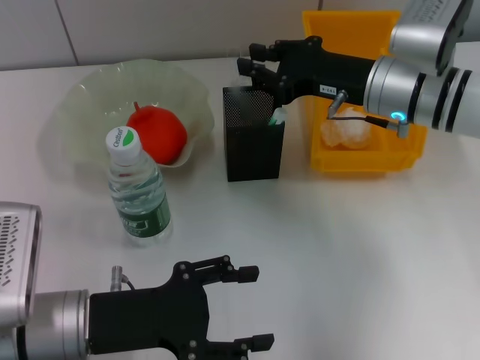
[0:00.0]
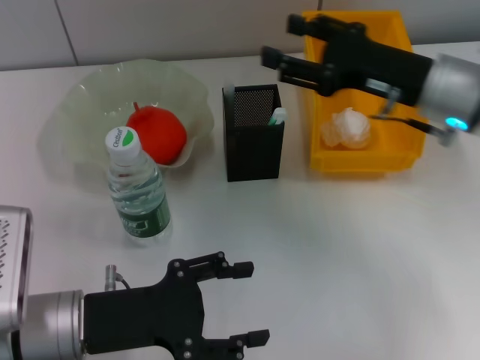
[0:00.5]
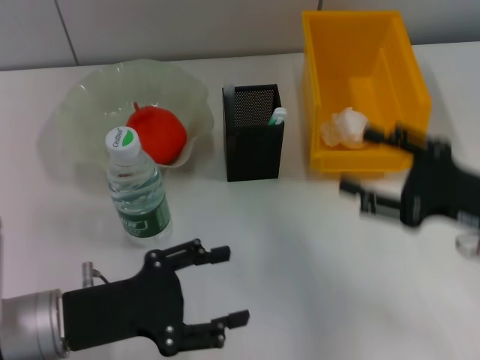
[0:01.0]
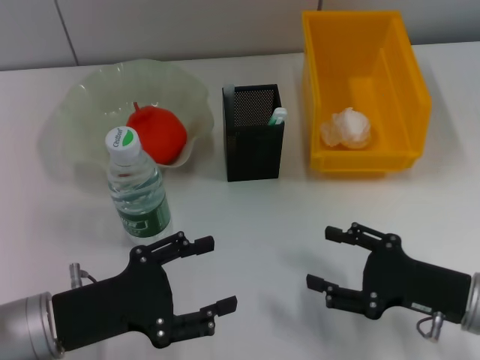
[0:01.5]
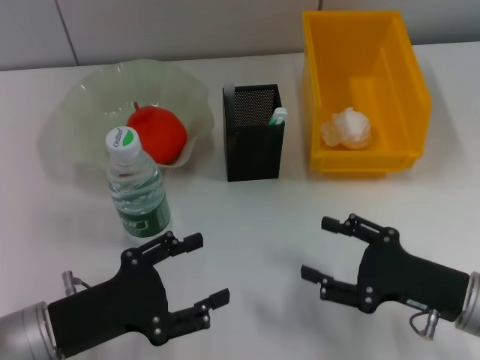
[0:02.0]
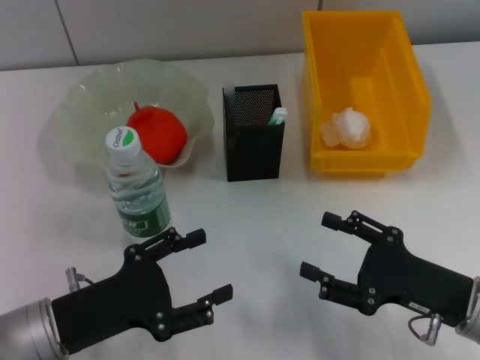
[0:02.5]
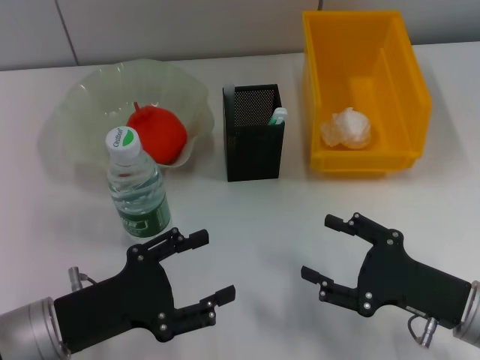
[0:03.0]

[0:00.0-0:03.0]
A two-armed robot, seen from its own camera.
0:00.0 to 0:01.5: The right gripper shifts approximately 20 cm backward and downward, and opens.
0:01.5 to 0:03.0: There are only small adjustments of the grippers.

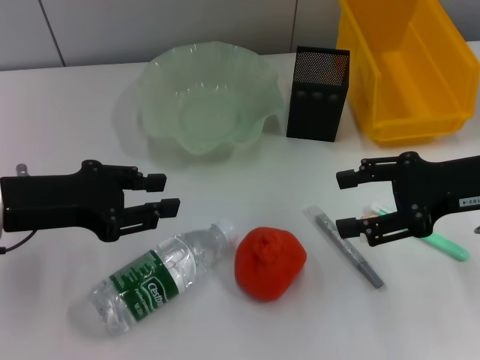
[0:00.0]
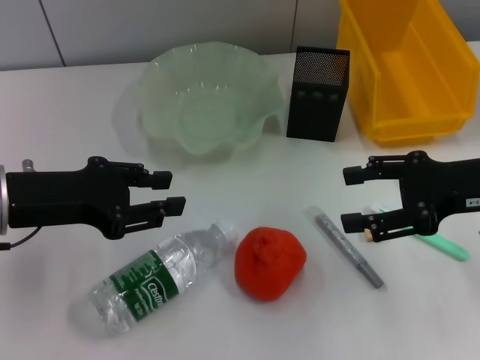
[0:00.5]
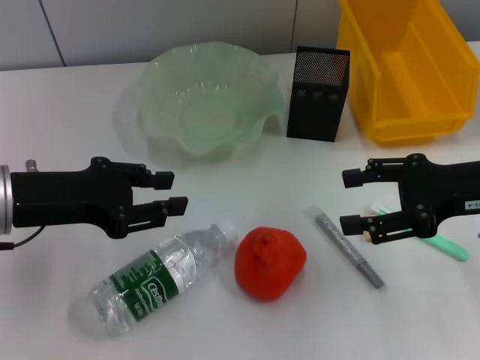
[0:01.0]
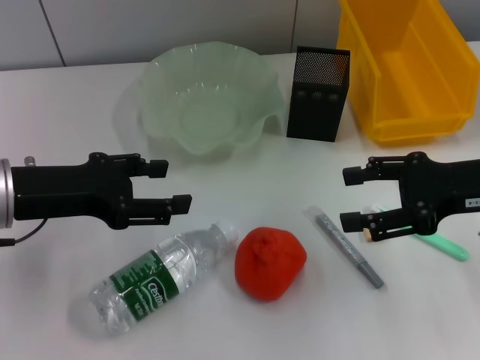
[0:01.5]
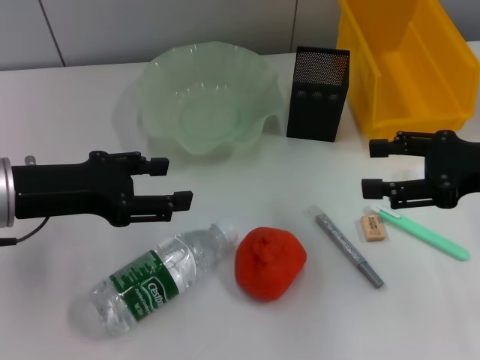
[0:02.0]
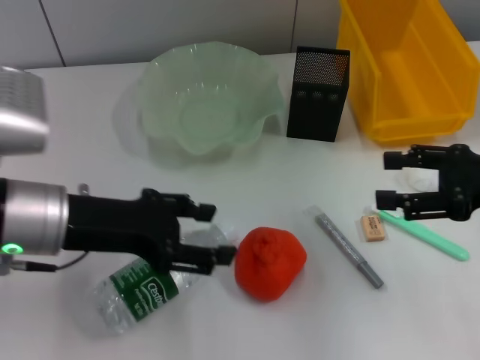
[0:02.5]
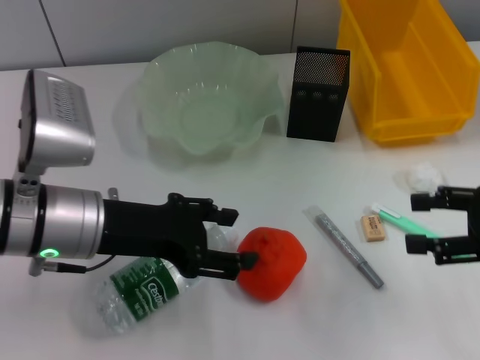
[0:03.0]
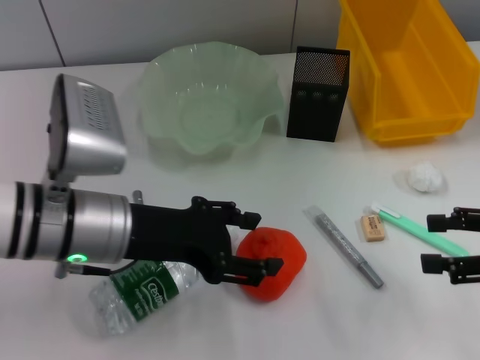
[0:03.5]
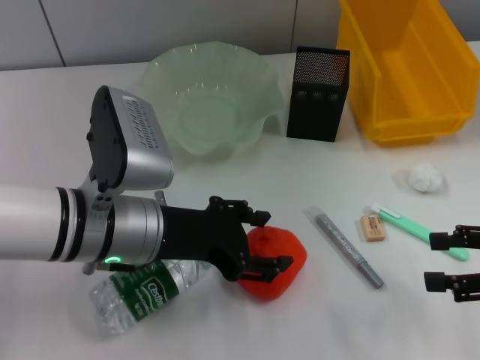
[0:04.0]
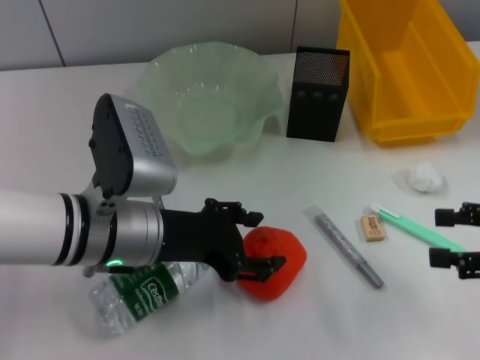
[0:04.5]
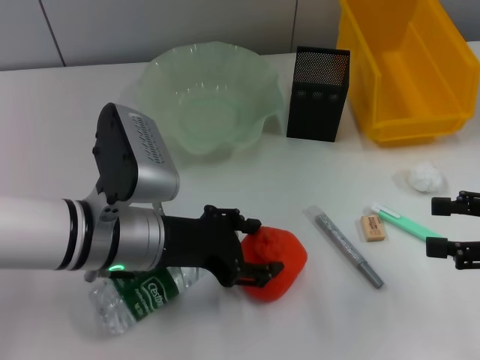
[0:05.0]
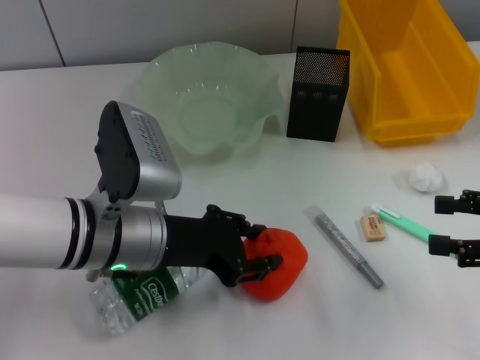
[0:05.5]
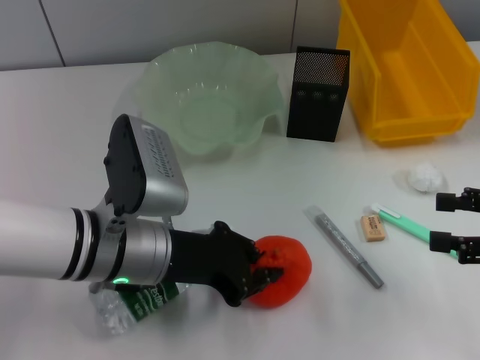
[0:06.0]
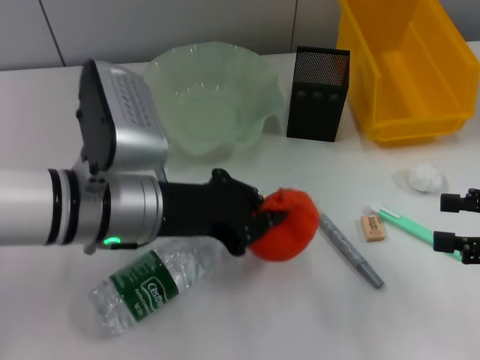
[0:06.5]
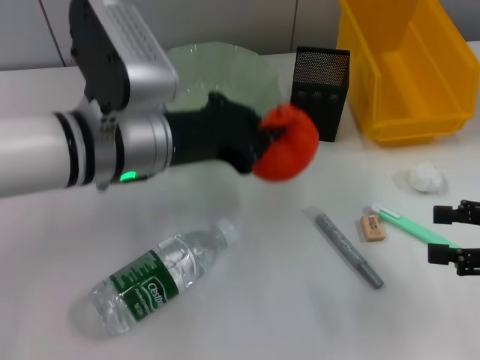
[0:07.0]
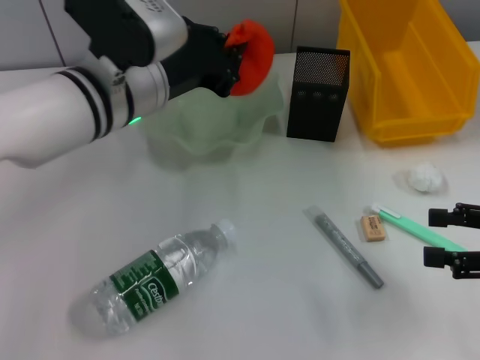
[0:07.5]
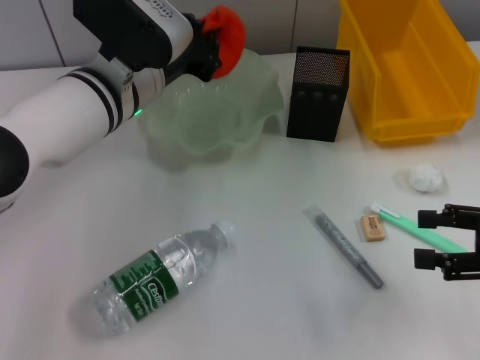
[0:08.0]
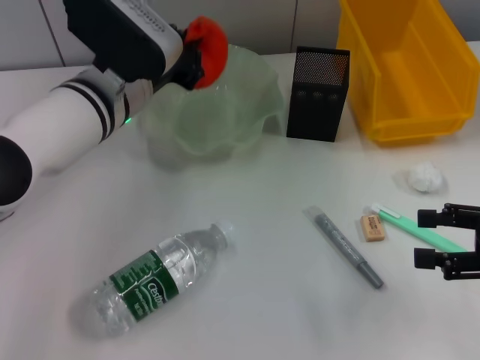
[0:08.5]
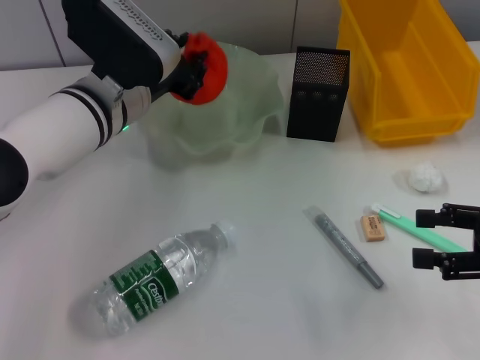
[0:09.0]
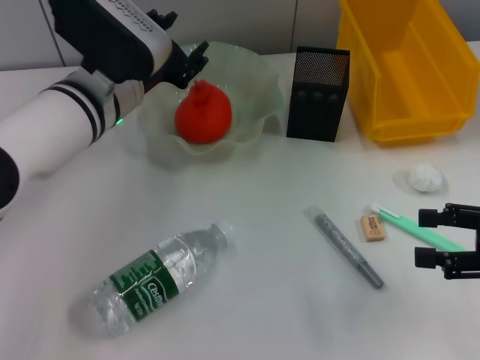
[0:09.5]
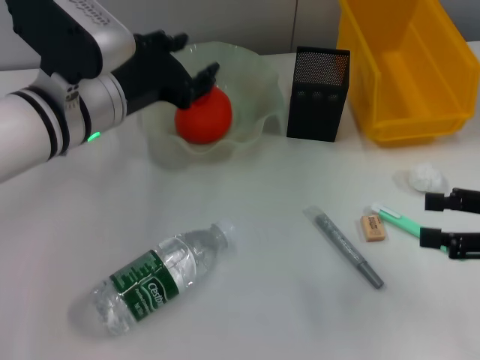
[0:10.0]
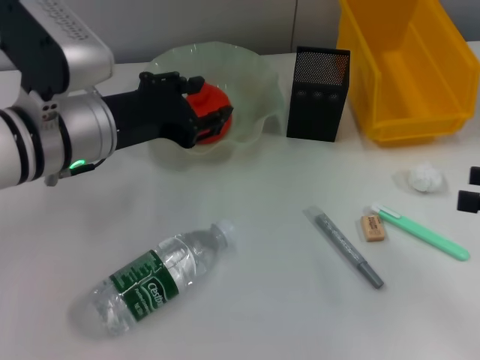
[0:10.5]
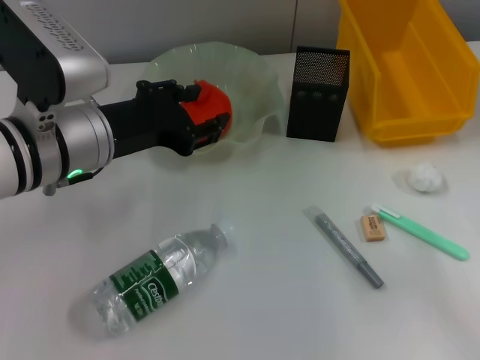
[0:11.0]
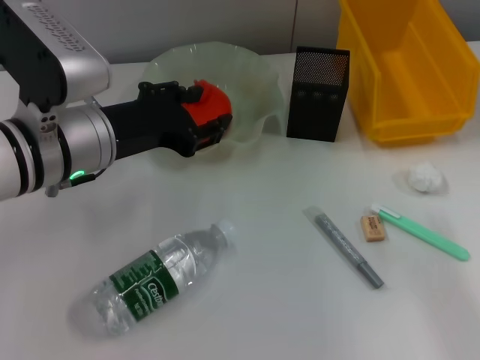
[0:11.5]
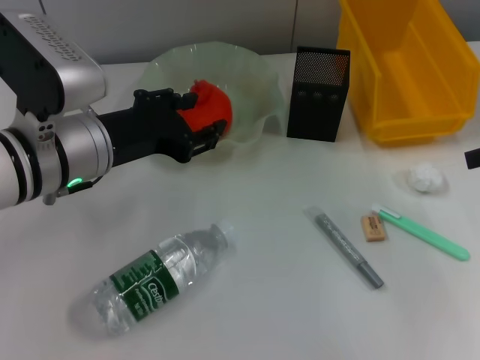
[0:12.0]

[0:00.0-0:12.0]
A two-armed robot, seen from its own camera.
Step, 0:00.0 to 0:05.5: Grab the orange with the left hand.
Step, 0:06.0 to 0:09.5: Place the orange into the fruit bowl with the left hand.
0:00.0 to 0:02.0: The left gripper opens up.
0:02.0 to 0:04.0: The left gripper goes roughly 10 cm to the right. Meanwhile the right gripper goes approximately 5 cm backward.
0:04.0 to 0:06.0: The left gripper closes.
0:06.0 to 0:08.0: The left gripper shifts approximately 10 cm forward and upward.
0:08.0 to 0:10.0: The left gripper opens up.
0:10.0 to 0:12.0: The right gripper heads upward and forward, covering about 10 cm.

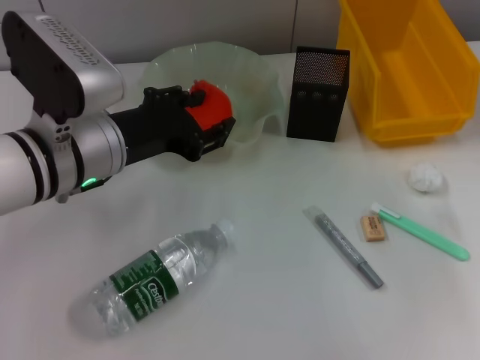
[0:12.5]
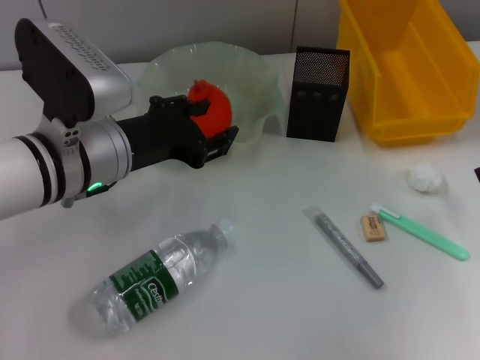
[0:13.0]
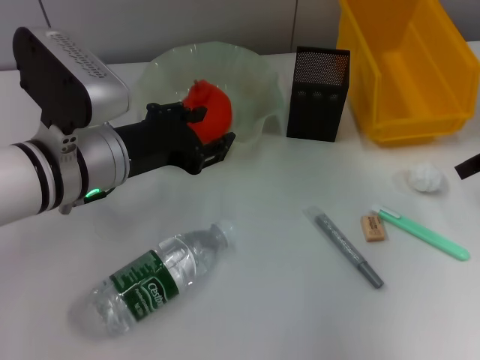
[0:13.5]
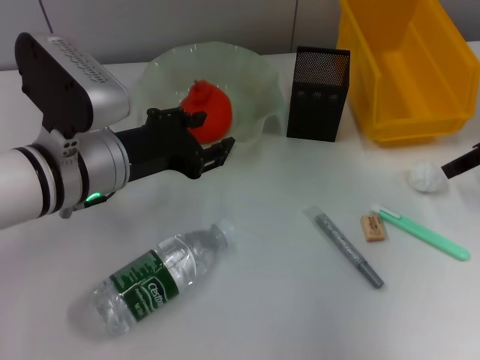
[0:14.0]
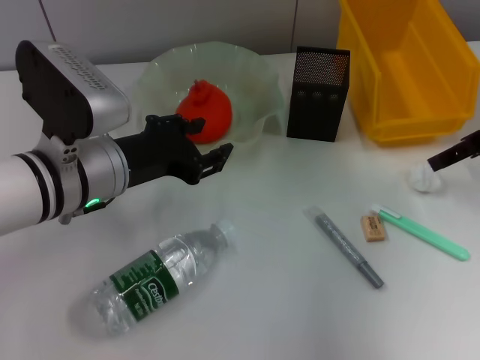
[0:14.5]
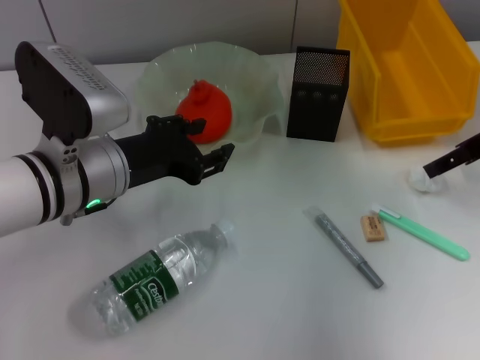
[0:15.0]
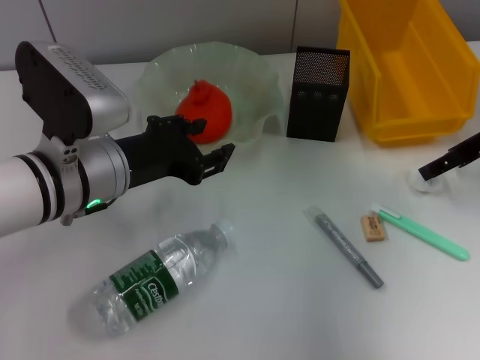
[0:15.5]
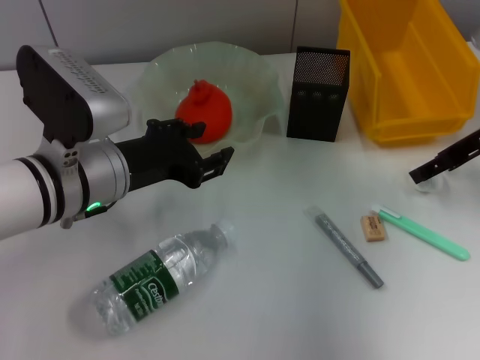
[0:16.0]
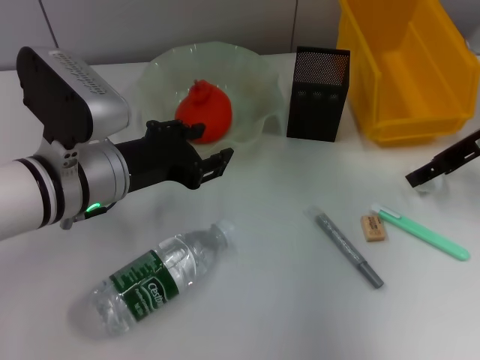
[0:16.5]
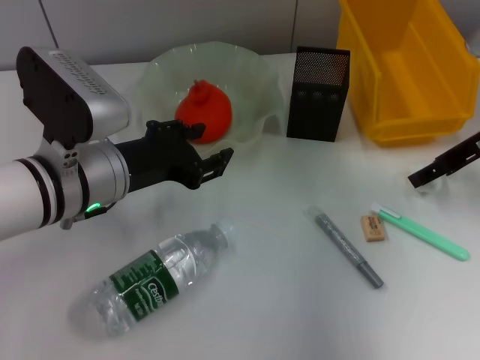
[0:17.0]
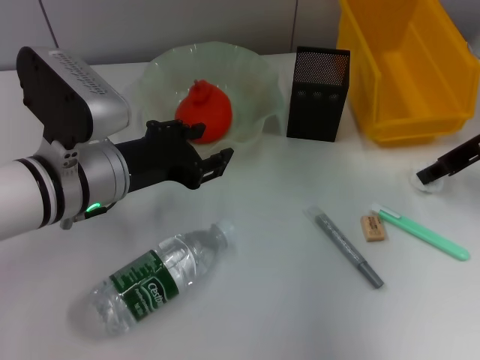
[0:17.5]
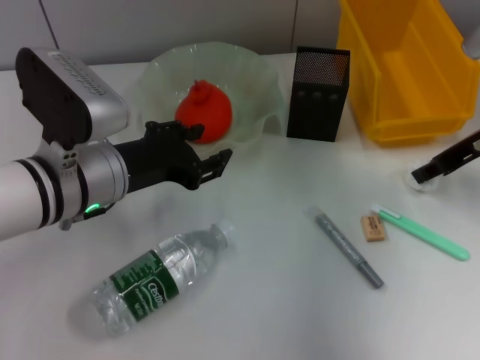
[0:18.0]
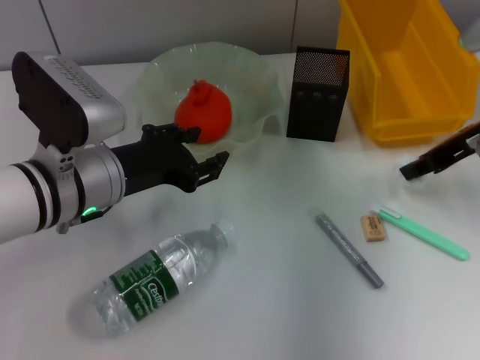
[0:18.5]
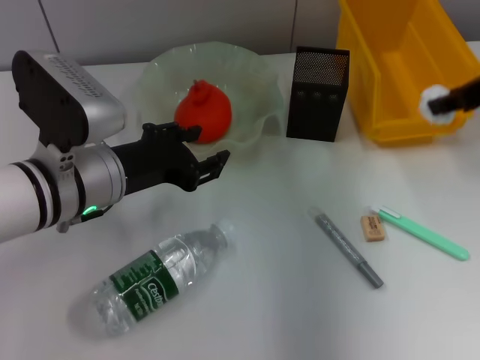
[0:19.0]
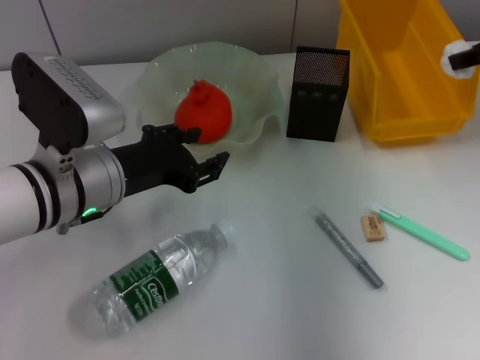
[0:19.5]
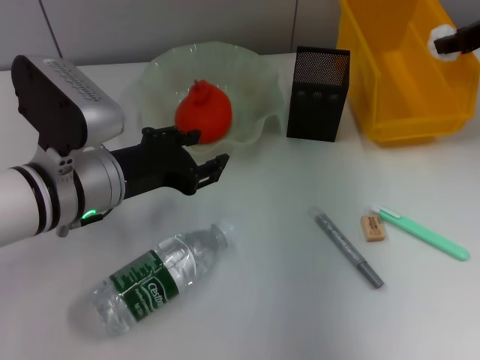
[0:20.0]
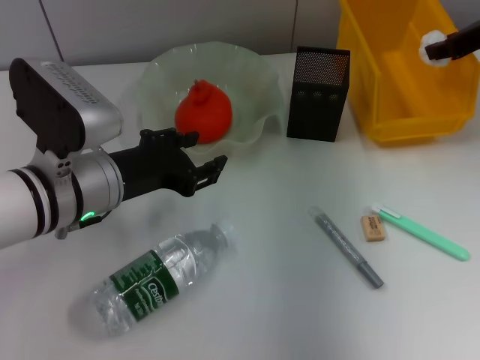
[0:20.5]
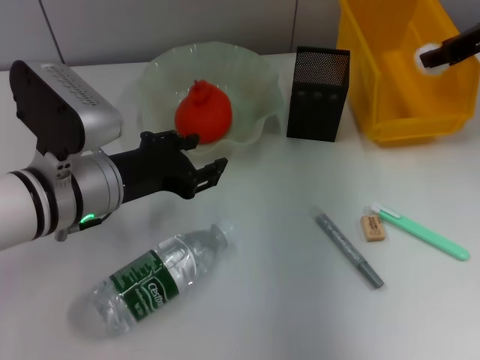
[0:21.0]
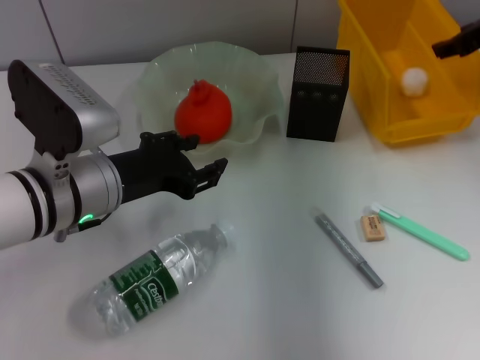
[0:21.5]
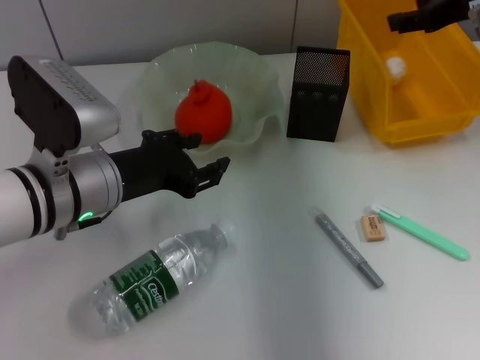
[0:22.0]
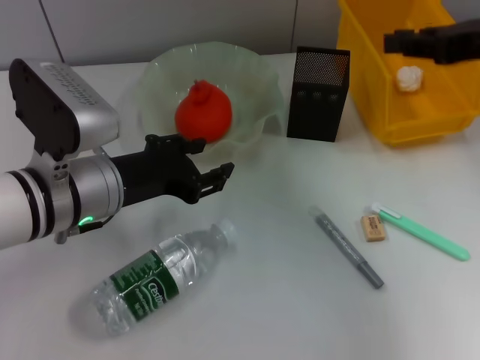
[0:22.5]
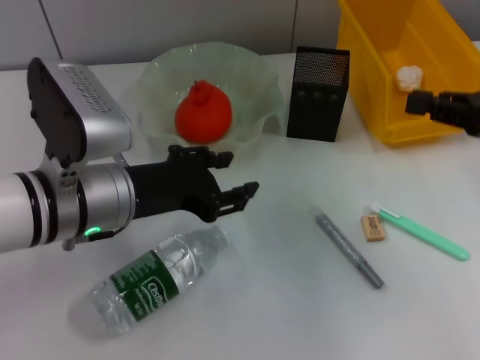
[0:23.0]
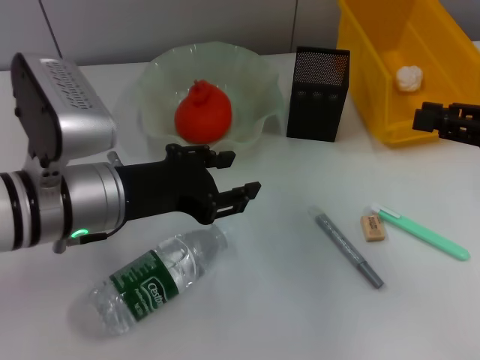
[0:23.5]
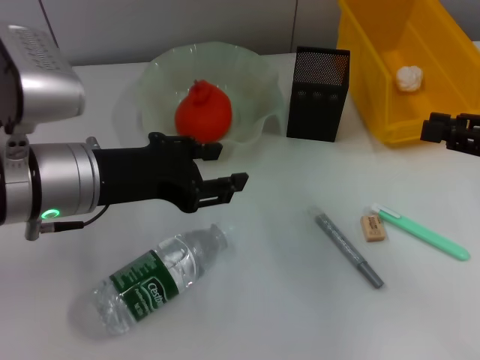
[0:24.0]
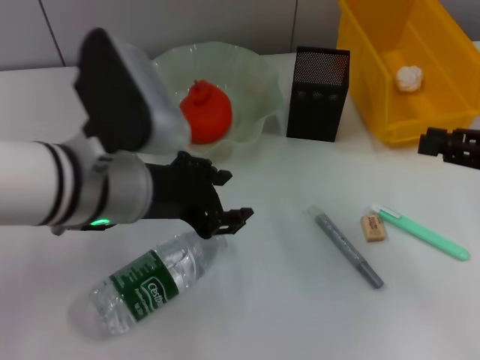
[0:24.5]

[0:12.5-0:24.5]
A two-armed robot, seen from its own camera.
Step, 0:12.5 to 0:18.0: Grab the paper ball with the right hand.
Step, 0:18.5 to 0:21.5: Place the paper ball into the trash can with the right hand.
0:12.5 to 0:14.5: The right gripper travels forward and to the left by some 10 cm, and closes.
0:14.5 to 0:16.5: The grippers stay close to where they were, moving slightly.
0:16.5 to 0:18.5: The right gripper closes.
0:18.5 to 0:20.5: The right gripper shifts roughly 5 cm forward.
0:20.5 to 0:22.5: The right gripper moves backward, about 10 cm.
0:22.5 to 0:24.5: The left gripper shifts by approximately 5 cm; the right gripper travels downward and backward by approximately 10 cm.
